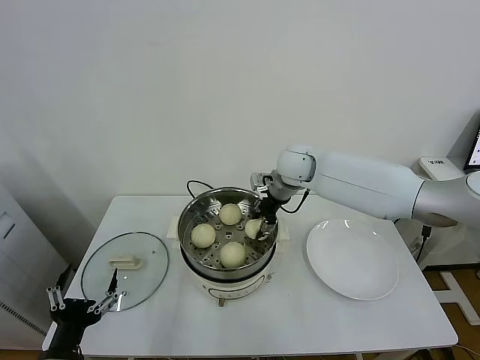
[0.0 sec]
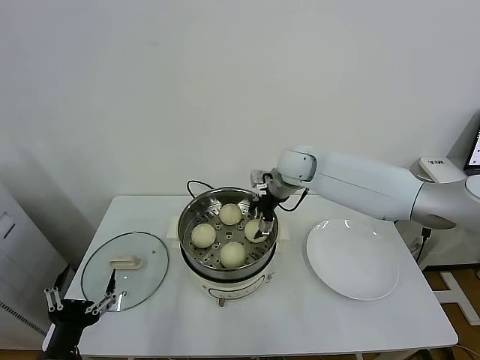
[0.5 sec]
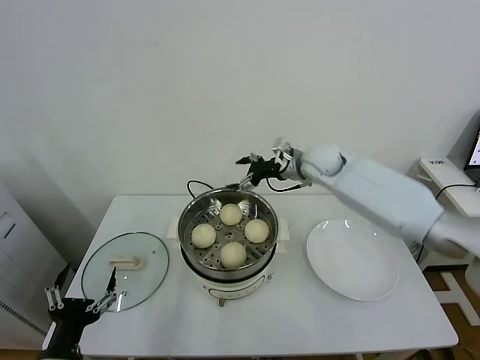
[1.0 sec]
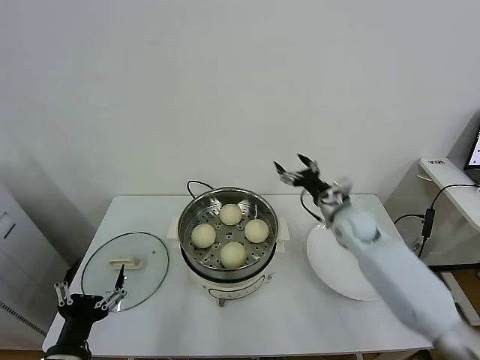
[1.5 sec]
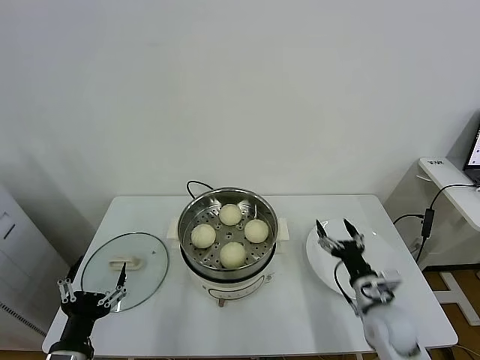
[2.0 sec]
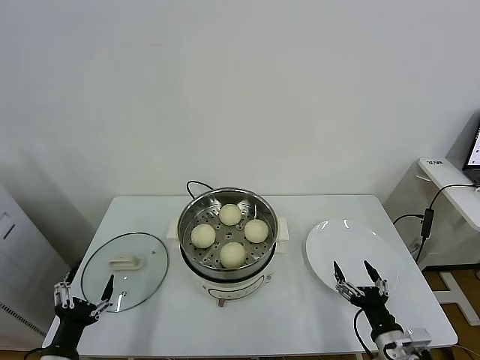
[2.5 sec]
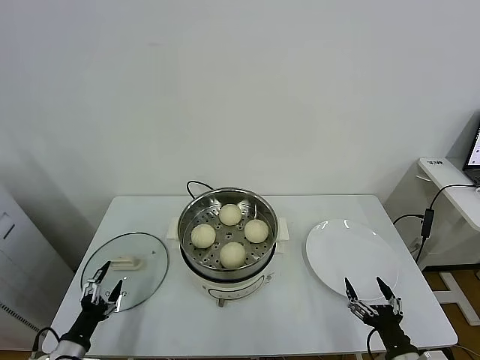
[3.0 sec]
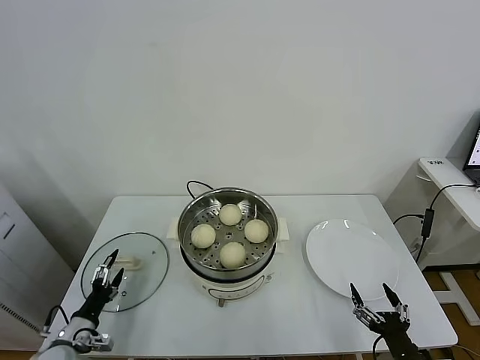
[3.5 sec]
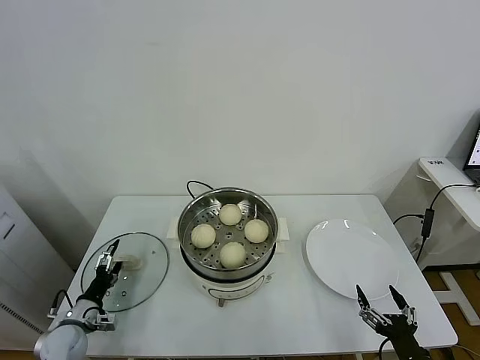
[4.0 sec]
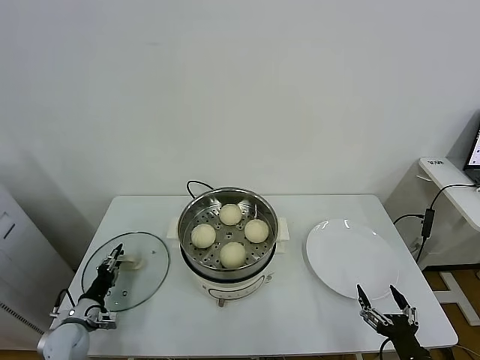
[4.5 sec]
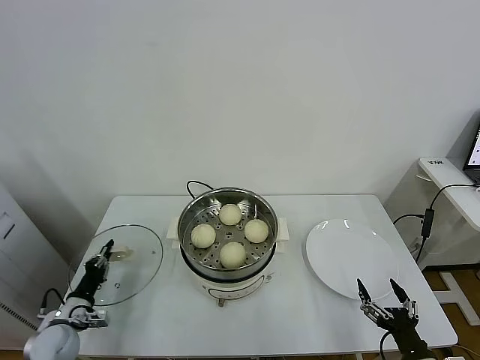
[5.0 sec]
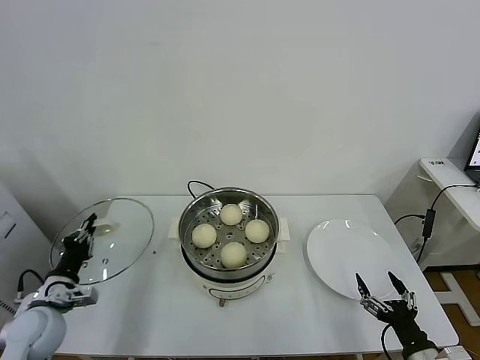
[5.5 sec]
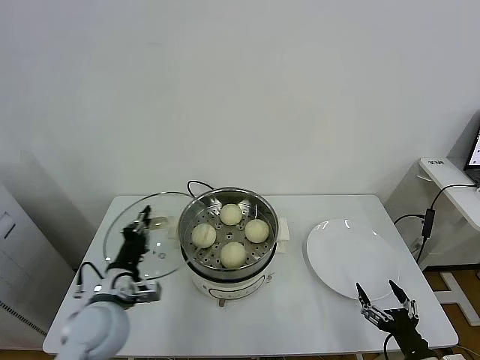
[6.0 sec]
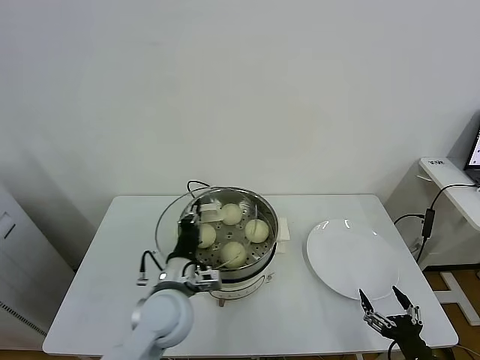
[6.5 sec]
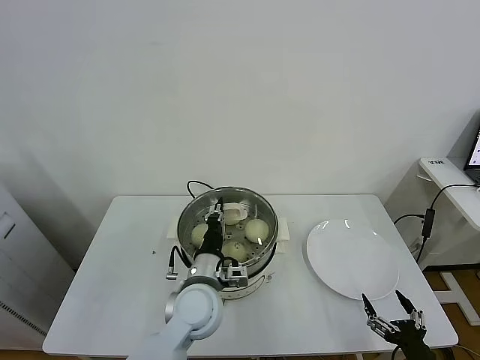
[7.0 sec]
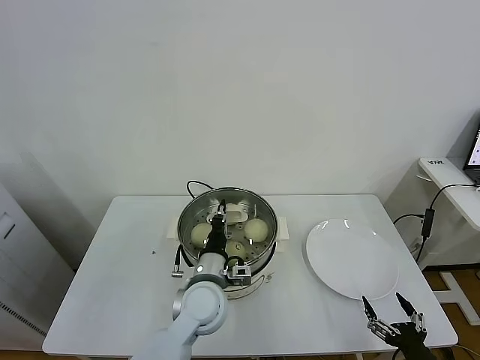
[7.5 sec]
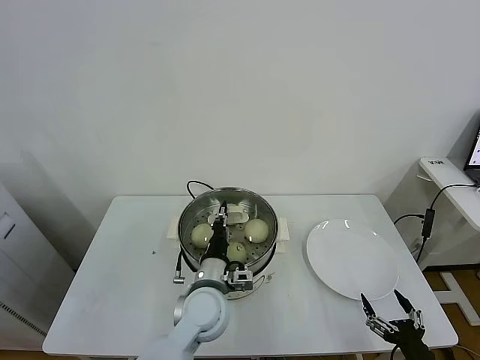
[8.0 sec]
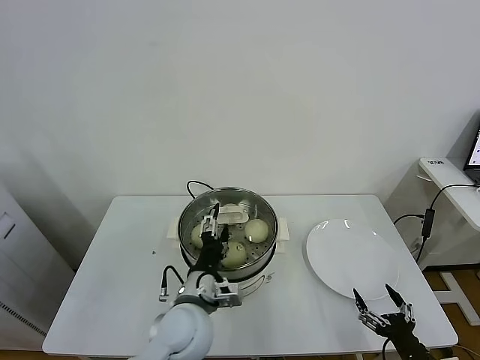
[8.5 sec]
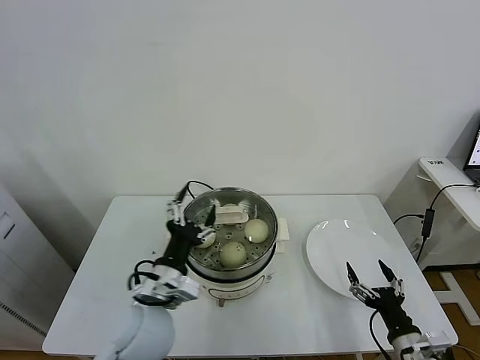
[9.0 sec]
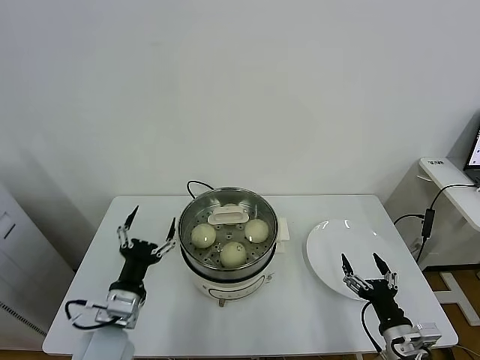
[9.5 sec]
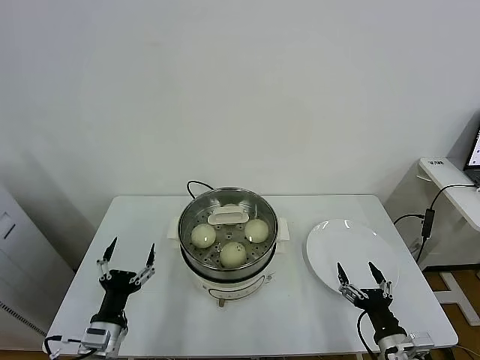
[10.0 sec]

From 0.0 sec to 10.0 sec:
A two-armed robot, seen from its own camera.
Task of the whole recording: take steamed baozi put them in steamer.
Step, from 1.0 sec to 4.5 sec: Grasp the pot lid with left gripper.
Step, from 5.0 sec to 8.5 sec: Place the pot lid on the steamer with left gripper.
From 0.0 sec to 2.0 sec: The right gripper travels backward, downward and to the right by some 40 cm, and opens its fingers.
From 2.0 sec to 4.0 sec: The left gripper is displaced downward, forward and to the left by approximately 25 cm. The right gripper shifts some 20 cm backward.
From 4.0 sec to 6.0 sec: The left gripper shifts about 25 cm upward and to the right, and closes its fingers.
From 6.0 sec to 8.0 sec: The left gripper moves to the right, about 20 cm.
From 8.0 sec to 10.0 sec: The right gripper goes approximately 5 cm forward. The left gripper heads to the left and backward, covering about 25 cm, and opens its fingers.

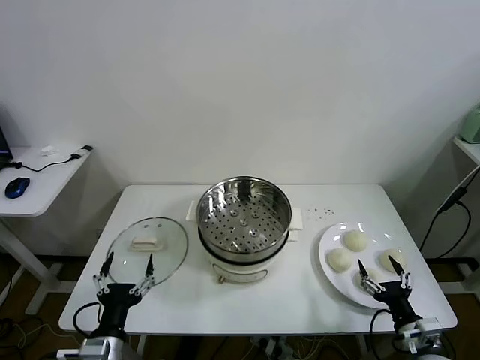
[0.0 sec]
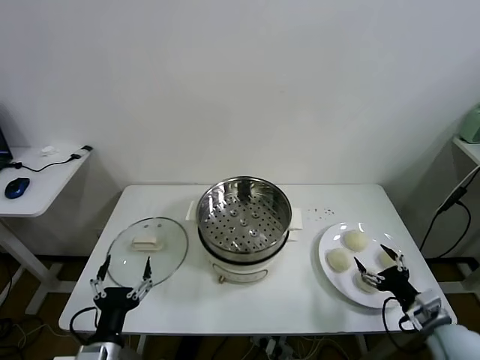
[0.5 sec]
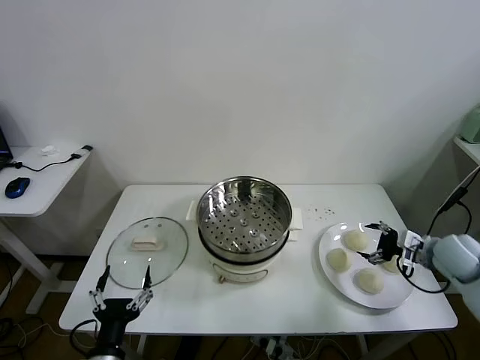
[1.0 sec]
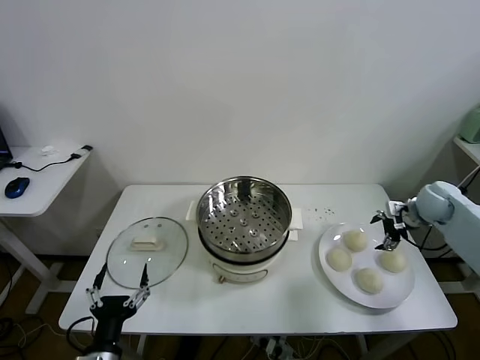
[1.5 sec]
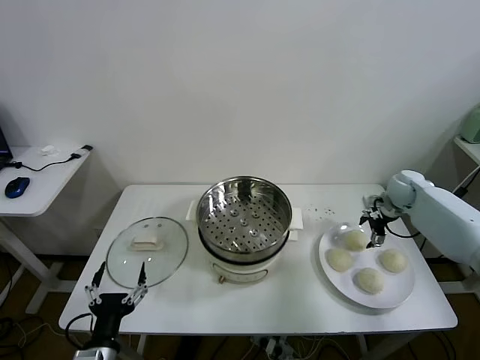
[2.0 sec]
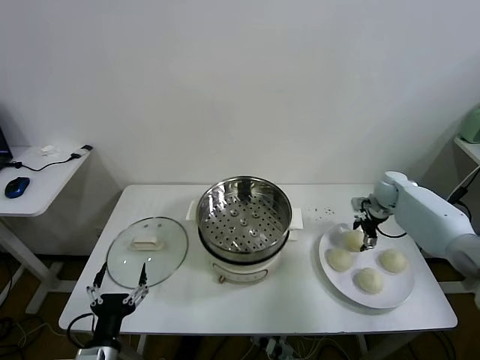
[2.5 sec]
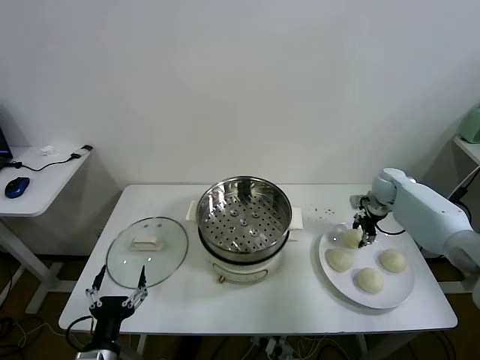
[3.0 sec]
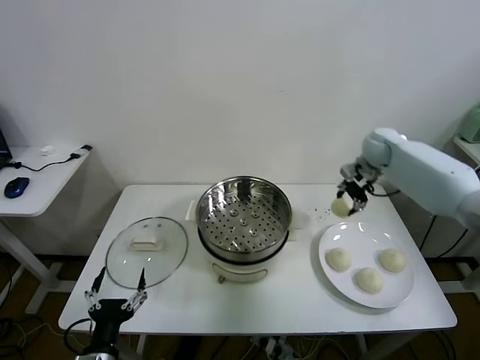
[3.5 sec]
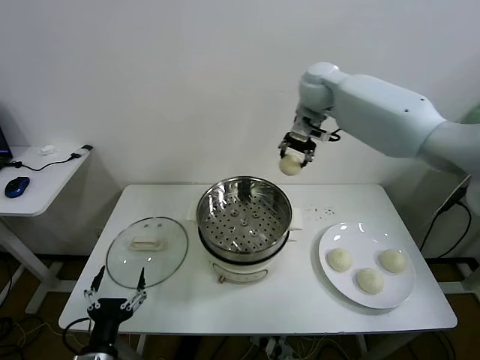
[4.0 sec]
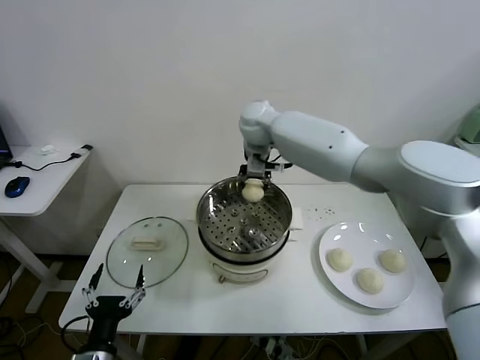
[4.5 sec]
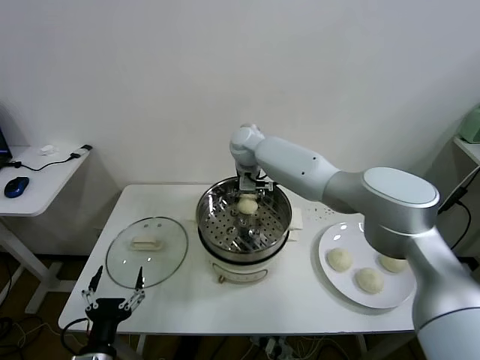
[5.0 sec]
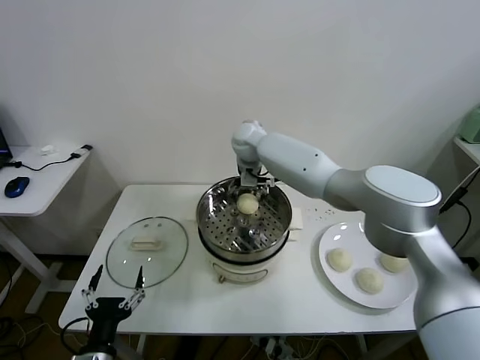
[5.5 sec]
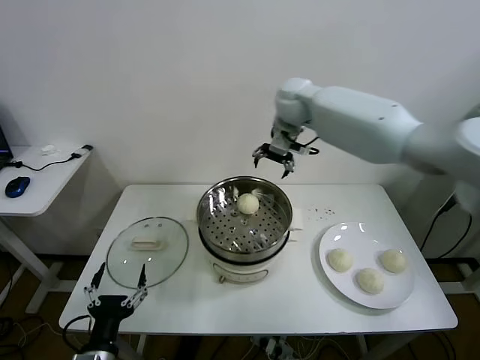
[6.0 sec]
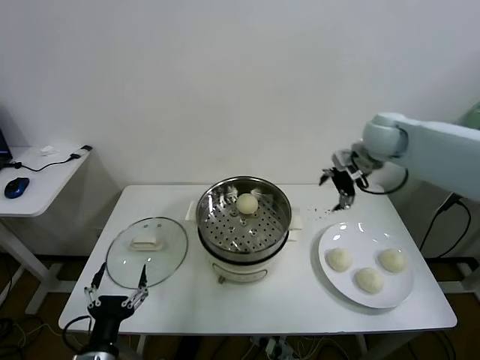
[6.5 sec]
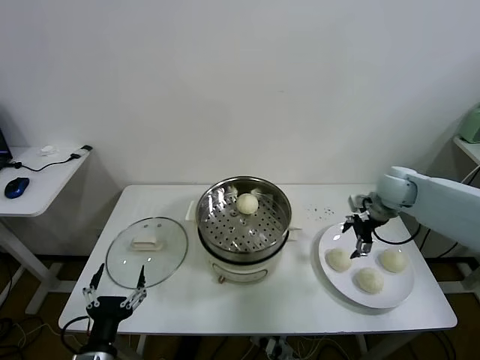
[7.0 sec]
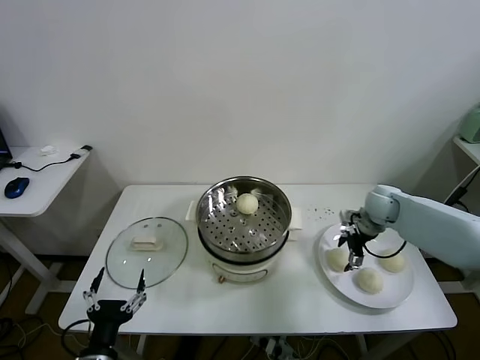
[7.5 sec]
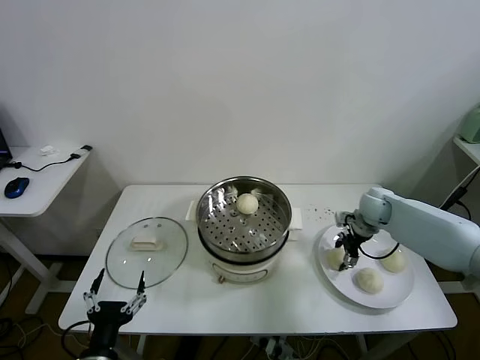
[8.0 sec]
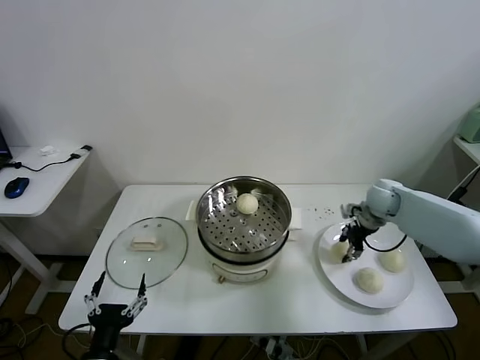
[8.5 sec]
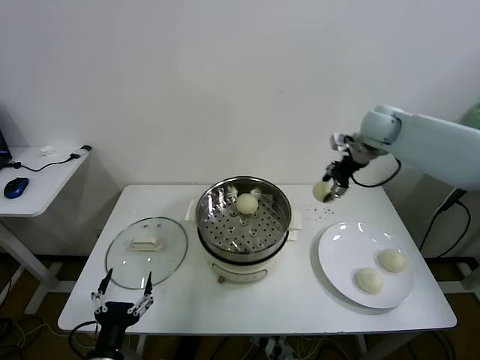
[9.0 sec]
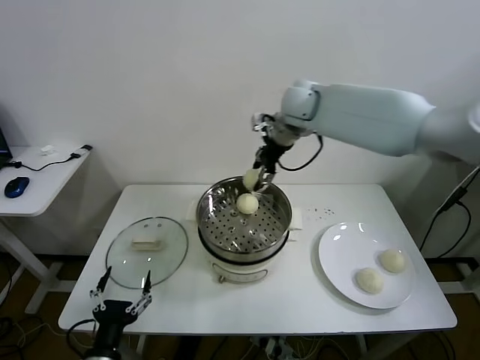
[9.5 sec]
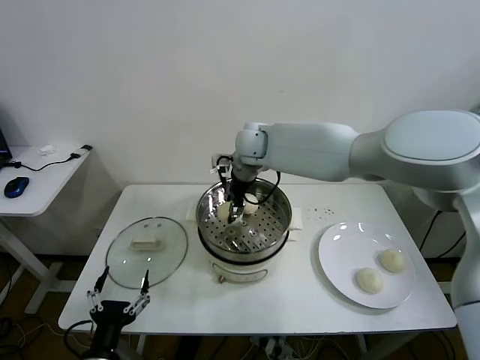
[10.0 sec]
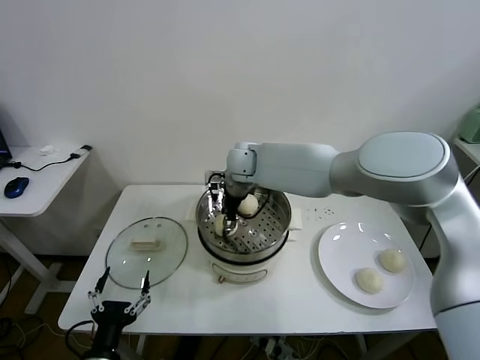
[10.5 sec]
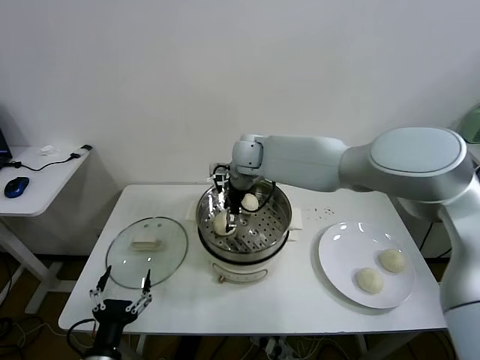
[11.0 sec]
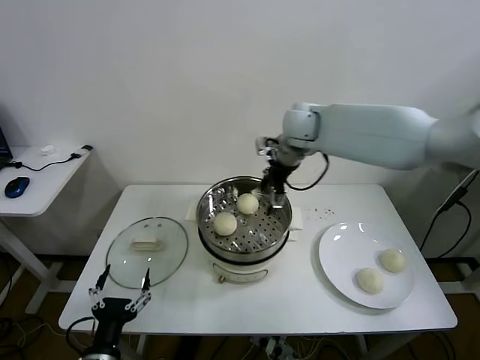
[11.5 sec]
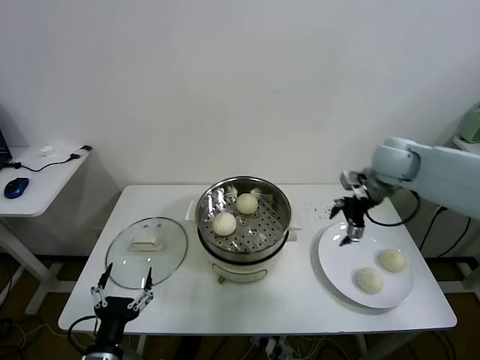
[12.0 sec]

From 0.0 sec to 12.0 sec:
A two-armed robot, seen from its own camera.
Task of the whole recording: take steamed baozi put them in steamer.
Step, from 0.0 sec to 2.5 sec: Grasp the baozi in the plate with right gripper.
Step, from 3.0 sec to 5.0 sec: Place the baozi on the steamer with right gripper.
Step, from 6.0 sec to 8.0 sec: Grasp the baozi in the plate with right gripper.
Step, from 8.5 sec to 11.0 sec: Place the baozi on the steamer with right gripper.
From 2.0 sec to 4.0 sec: The right gripper shifts approximately 40 cm to the left and upward, and closes its fingers.
From 4.0 sec to 6.0 sec: The right gripper moves about 10 cm to the left and comes back, and opens.
From 6.0 sec to 8.0 sec: The right gripper goes some 35 cm downward and to the right, and closes.
From 8.0 sec to 10.0 sec: The right gripper shifts about 40 cm to the left and upward.
From 10.0 sec to 12.0 sec: The right gripper moves to the right, approximately 35 cm, and opens.

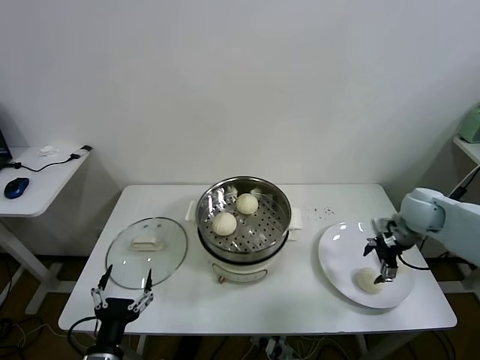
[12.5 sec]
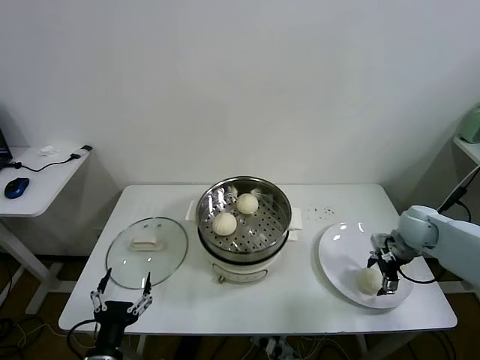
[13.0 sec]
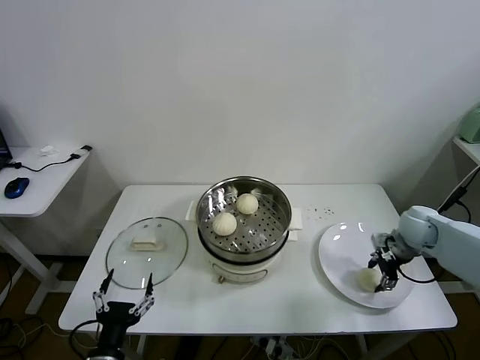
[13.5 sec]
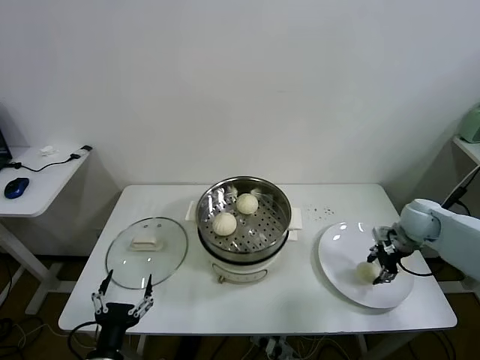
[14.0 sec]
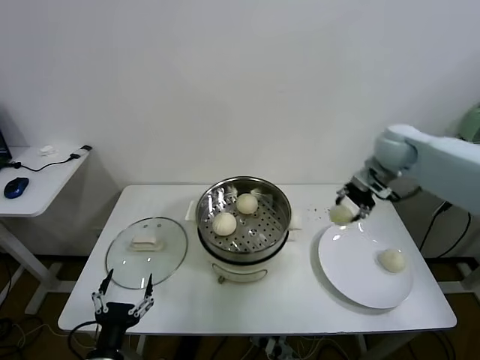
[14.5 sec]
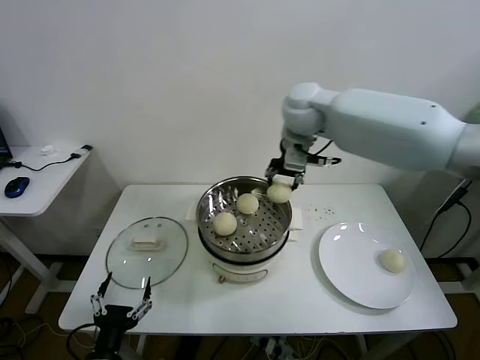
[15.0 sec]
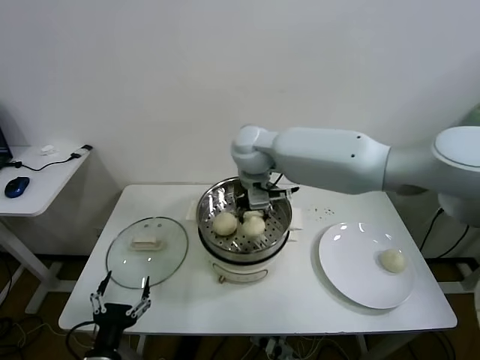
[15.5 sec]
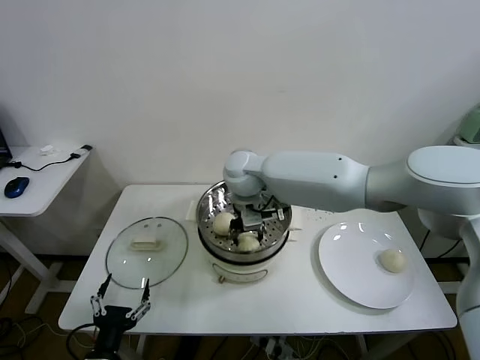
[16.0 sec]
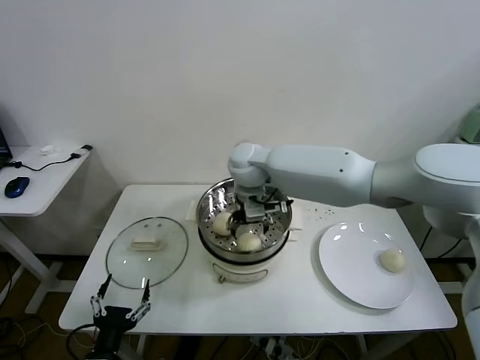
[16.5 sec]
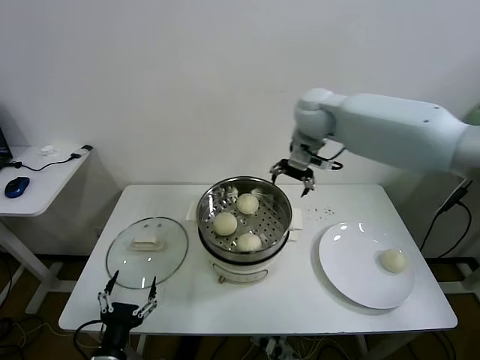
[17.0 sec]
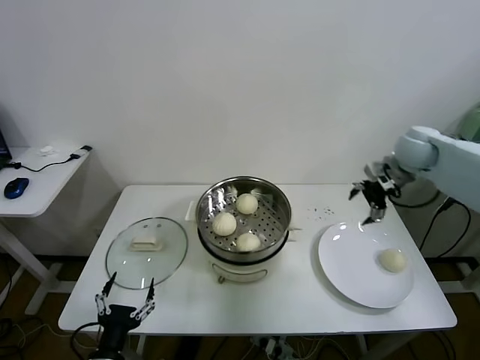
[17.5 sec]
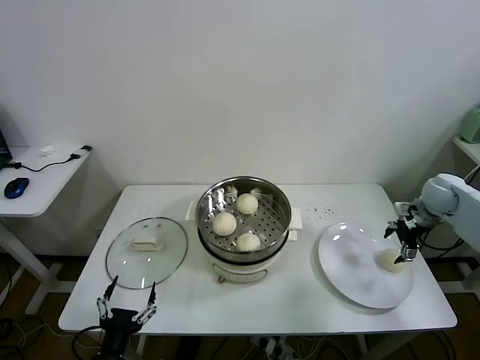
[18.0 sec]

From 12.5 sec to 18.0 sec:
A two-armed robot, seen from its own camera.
Task of the whole recording: take steamed baozi put them in steamer.
Step, from 13.5 sec to 16.5 sec: Place the baozi on the steamer with right gripper.
From 12.5 sec to 14.5 sec: The right gripper shifts about 20 cm upward, to the left and forward, and closes up.
From 14.5 sec to 16.0 sec: The right gripper is displaced to the left by some 30 cm.
From 16.0 sec to 18.0 sec: The right gripper is displaced to the right by roughly 50 cm, and opens up.
